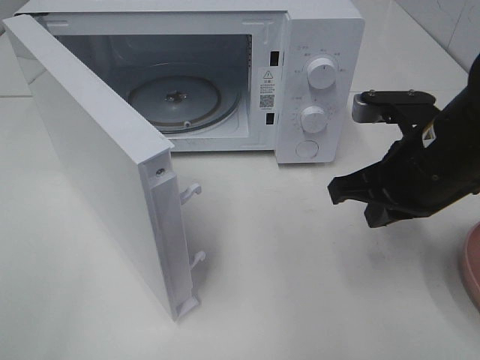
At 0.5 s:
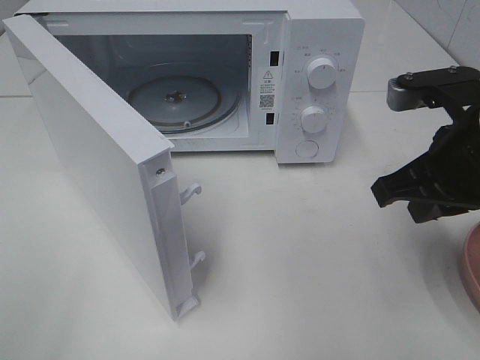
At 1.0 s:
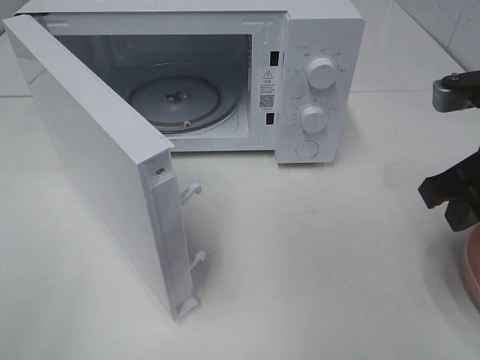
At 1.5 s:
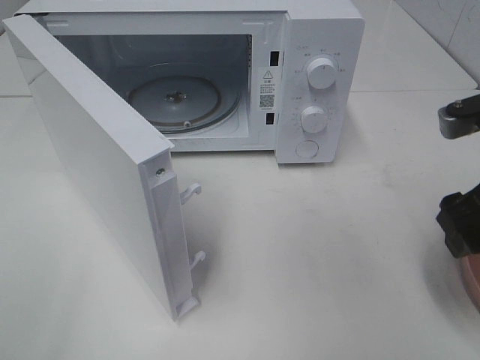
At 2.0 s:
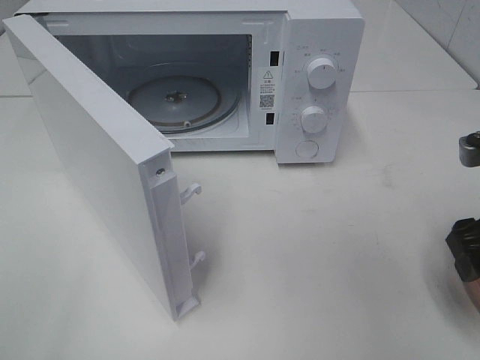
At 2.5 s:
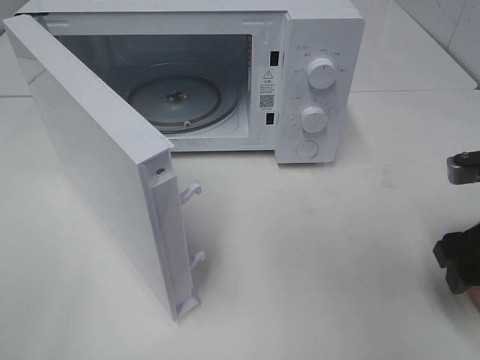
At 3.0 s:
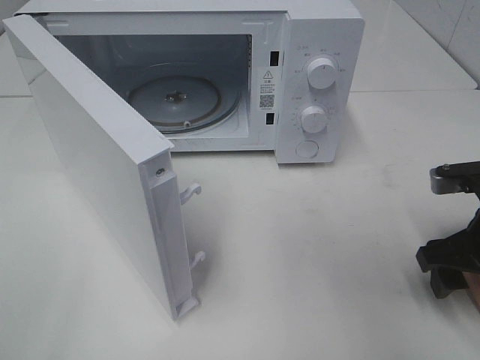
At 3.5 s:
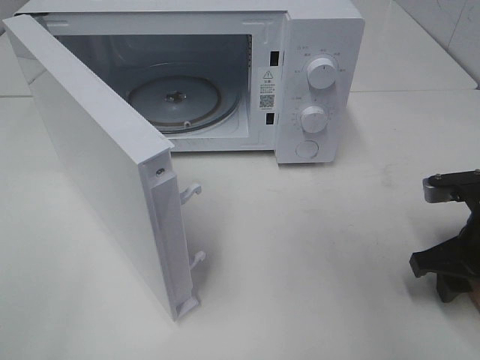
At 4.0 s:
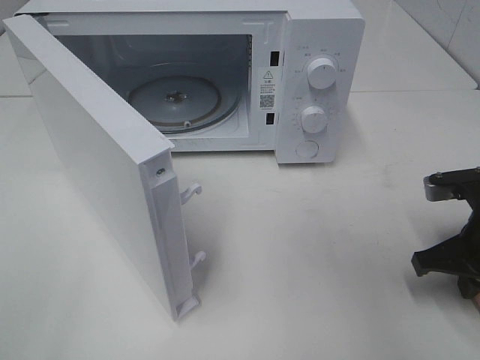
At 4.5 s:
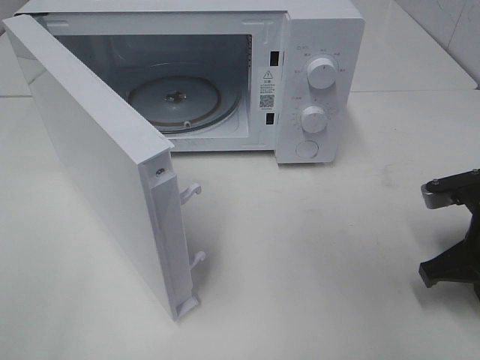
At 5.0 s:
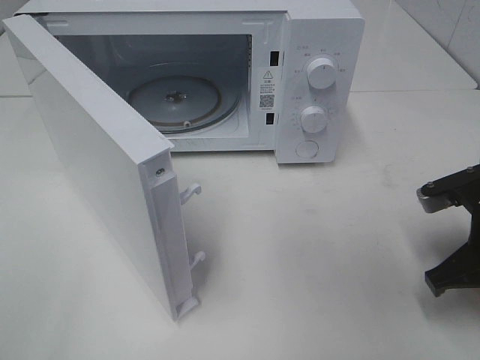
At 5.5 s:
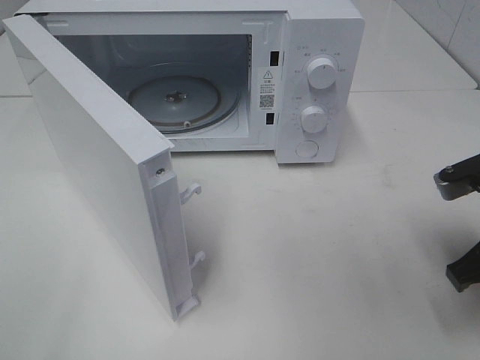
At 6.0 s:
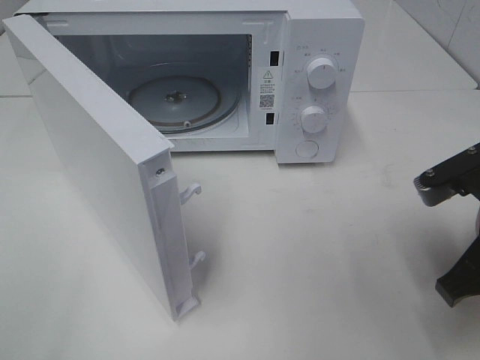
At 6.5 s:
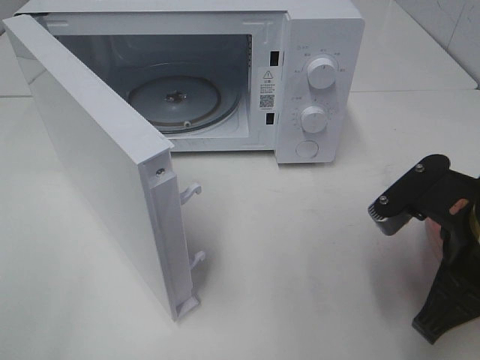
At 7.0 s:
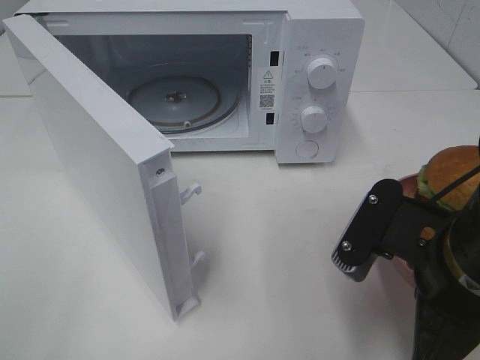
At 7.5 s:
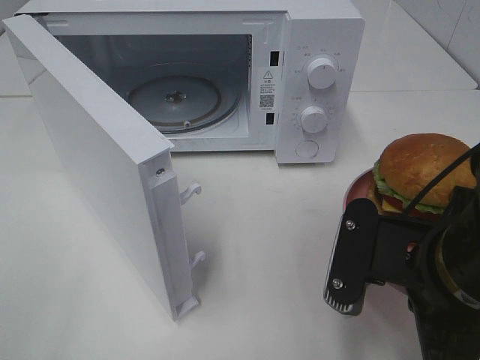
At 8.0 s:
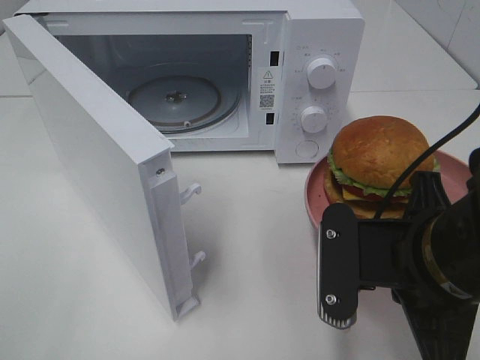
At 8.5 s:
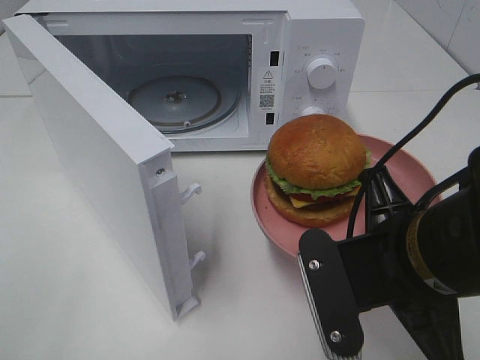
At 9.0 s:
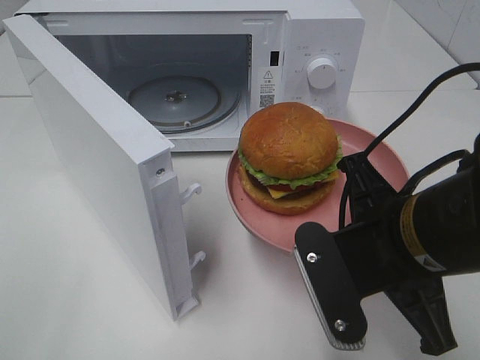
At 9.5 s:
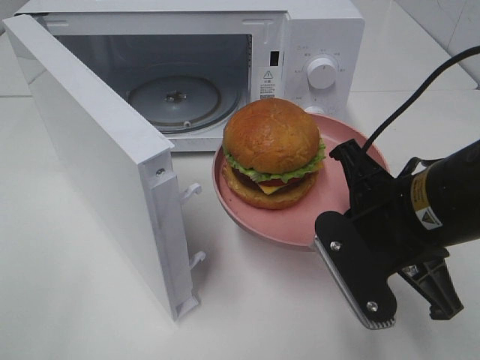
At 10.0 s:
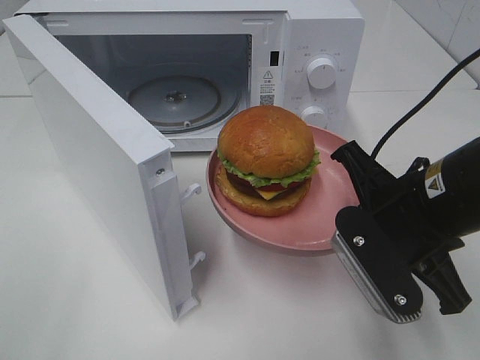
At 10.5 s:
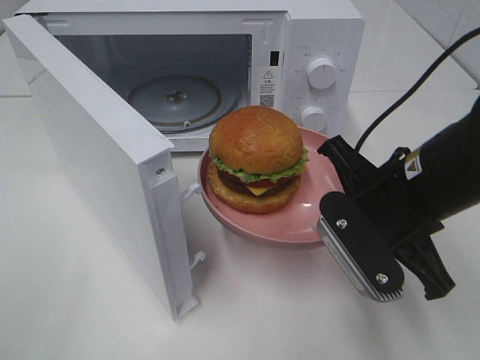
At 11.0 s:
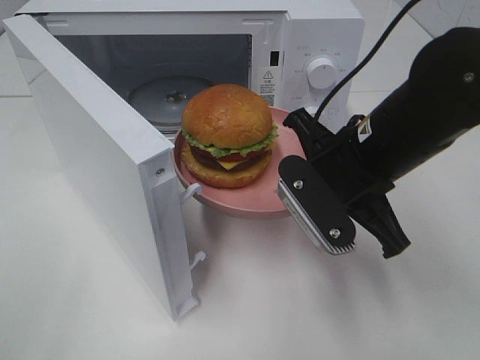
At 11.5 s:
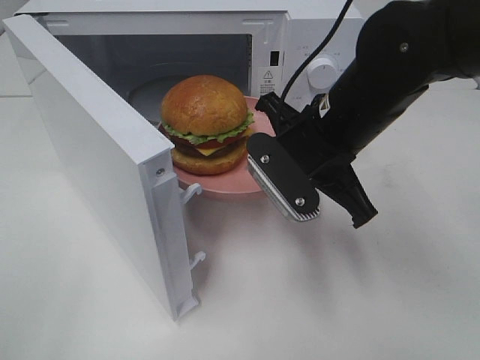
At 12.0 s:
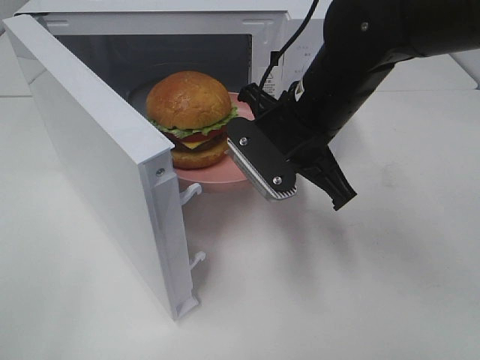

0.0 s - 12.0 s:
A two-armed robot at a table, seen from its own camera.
Task of the whole recording: Heat the burger.
Step, 0.0 s - 4.5 s: Right hand: grab the plate with the hamburger.
0.0 s - 2.0 s: The right gripper goes about 10 cm to the right, and opens up.
2.0 s - 4.0 s: The right gripper shifts roughly 10 cm downward, and closes.
4.0 s - 6.0 s: The right gripper shifts some 5 cm upward.
6.0 s - 8.0 s: The right gripper goes about 10 cm to the left.
8.0 s - 10.0 s: The right gripper moves forward, roughly 5 cm.
10.0 s - 12.0 s: The right gripper heads forward and to the left, covering approximately 15 cm.

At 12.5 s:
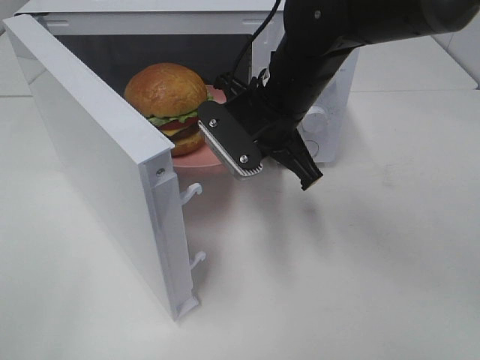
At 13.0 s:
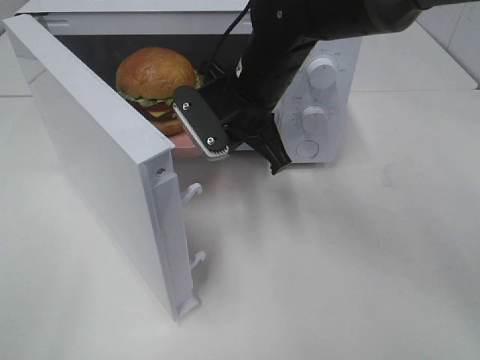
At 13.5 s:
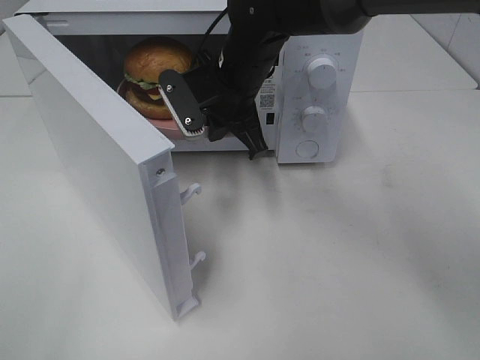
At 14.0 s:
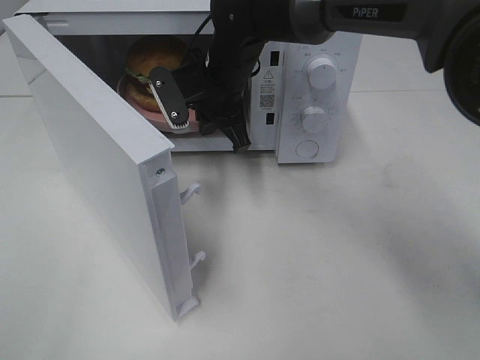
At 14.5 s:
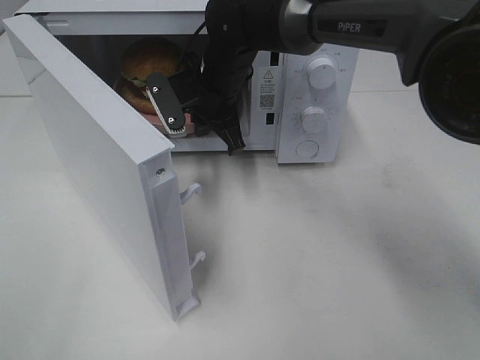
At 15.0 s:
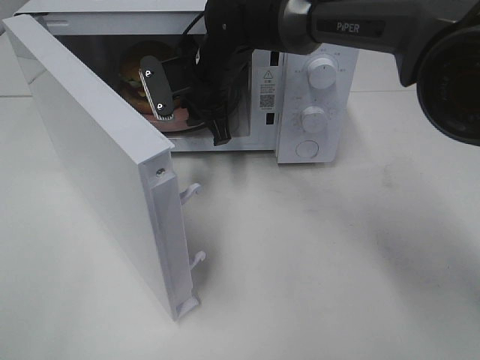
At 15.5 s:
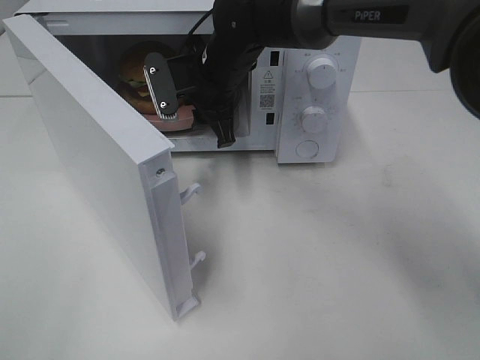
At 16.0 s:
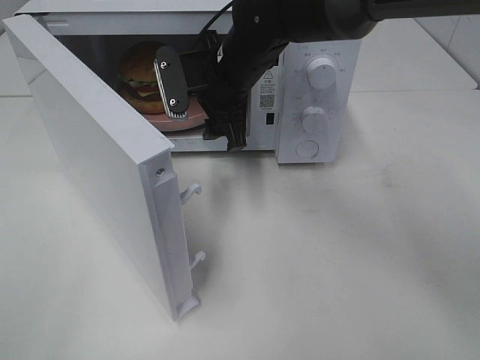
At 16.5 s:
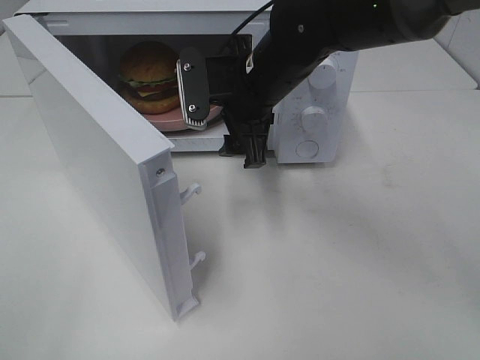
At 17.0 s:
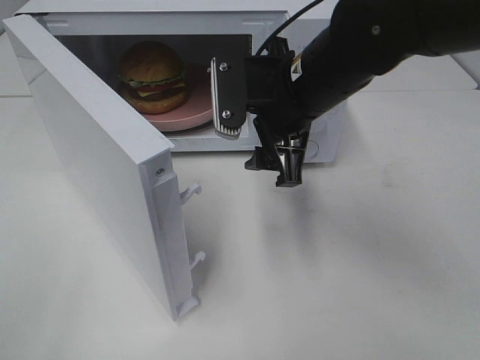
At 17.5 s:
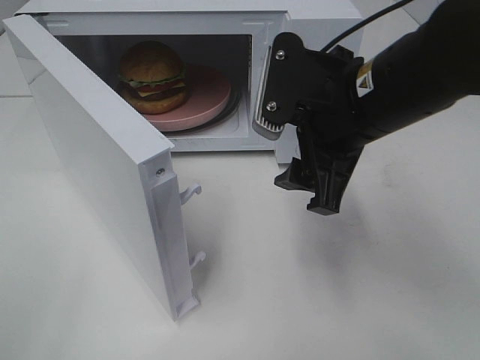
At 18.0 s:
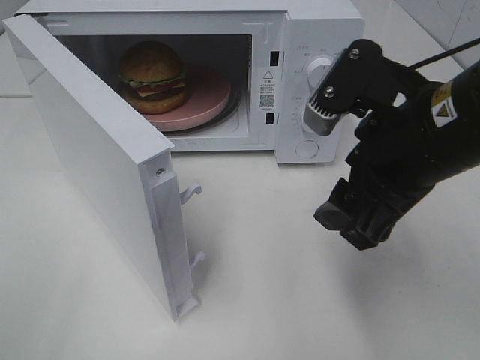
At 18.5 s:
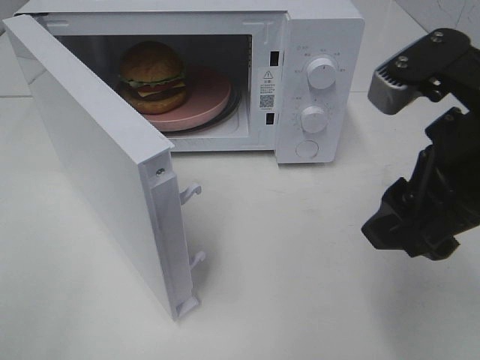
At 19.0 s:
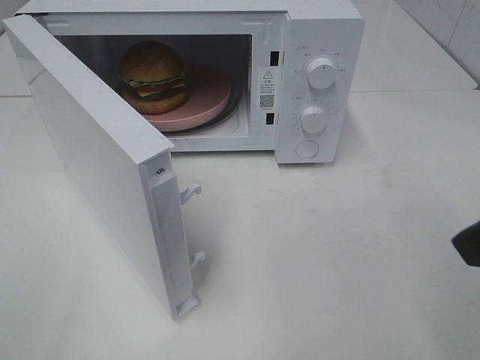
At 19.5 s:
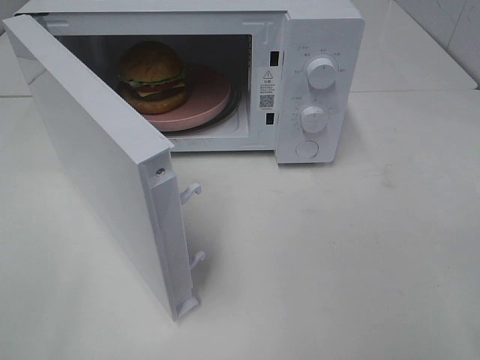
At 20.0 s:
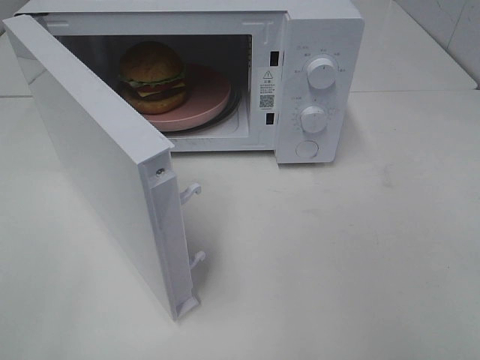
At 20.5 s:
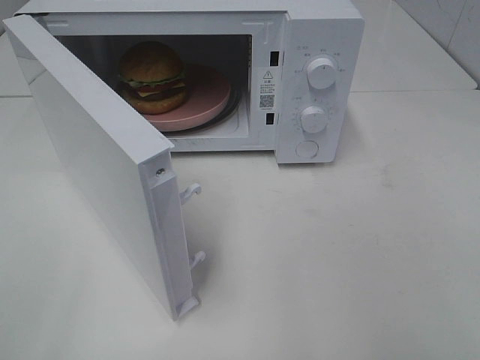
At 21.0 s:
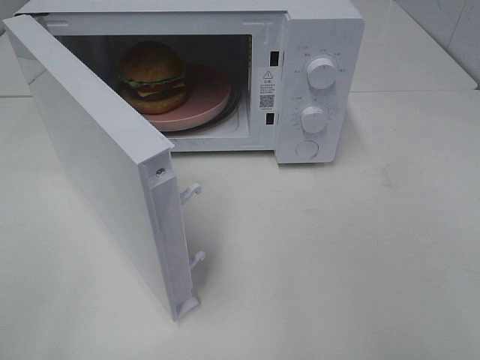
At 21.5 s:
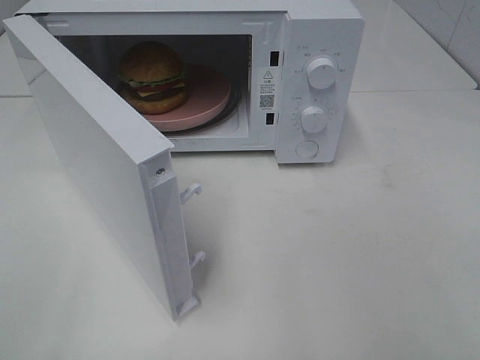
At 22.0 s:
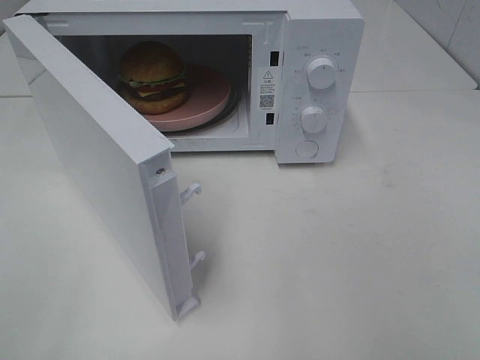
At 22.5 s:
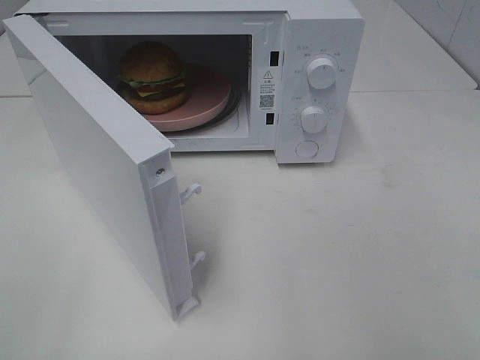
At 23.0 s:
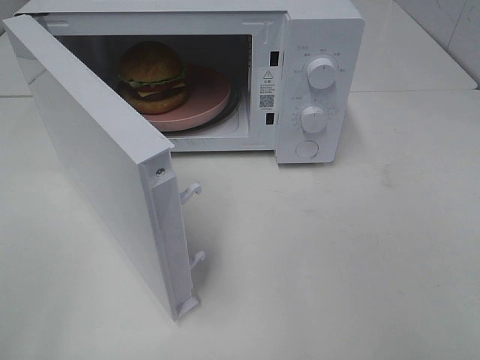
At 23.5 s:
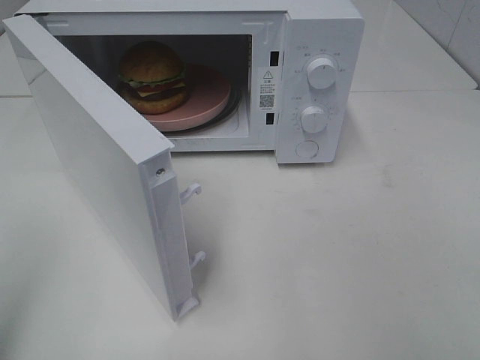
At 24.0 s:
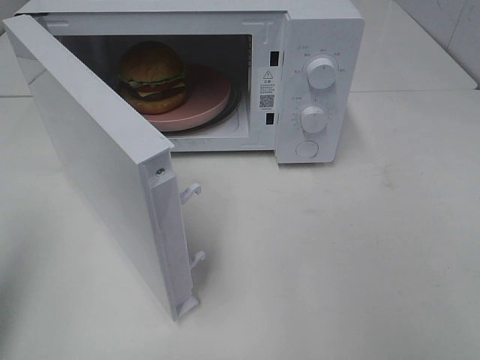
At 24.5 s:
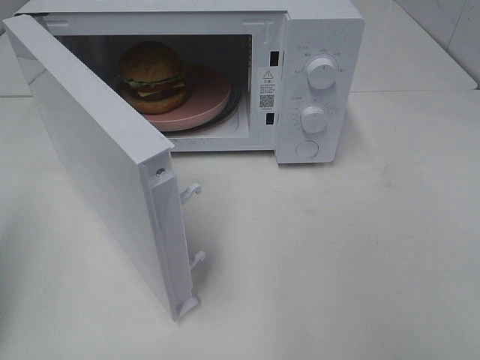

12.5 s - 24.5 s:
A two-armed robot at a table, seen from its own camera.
Task of the whole recording: Heat the burger.
Step, 12.5 s - 15.0 s: Right hand: place the plate in the microwave.
12.5 s - 14.5 s: The right gripper shifts some 10 cm forward and to the left.
14.5 s - 16.5 s: The right gripper travels backward and to the right by about 10 cm, and opens its fingers.
16.5 s - 18.5 s: The right gripper goes approximately 25 cm backward and to the right.
18.5 s - 20.5 s: The right gripper moves backward and to the right, about 20 cm.
20.5 s - 22.5 s: The two grippers keep their place.
22.5 s - 24.5 s: The left gripper moves forward, roughly 15 cm, and closes up.

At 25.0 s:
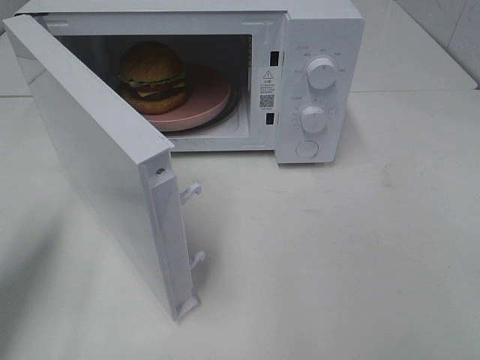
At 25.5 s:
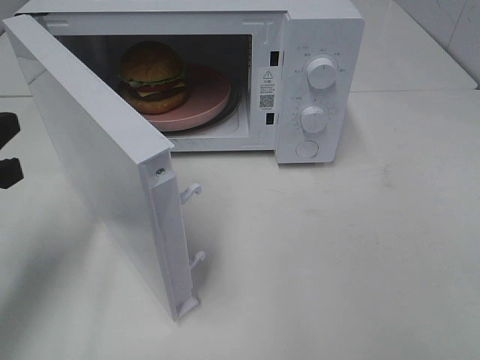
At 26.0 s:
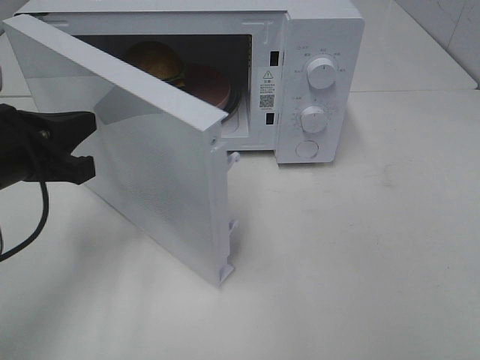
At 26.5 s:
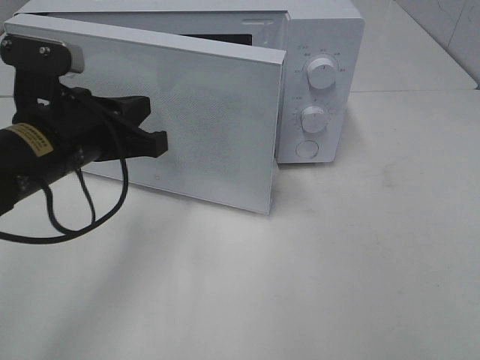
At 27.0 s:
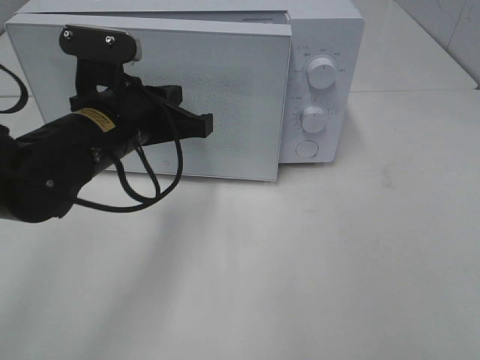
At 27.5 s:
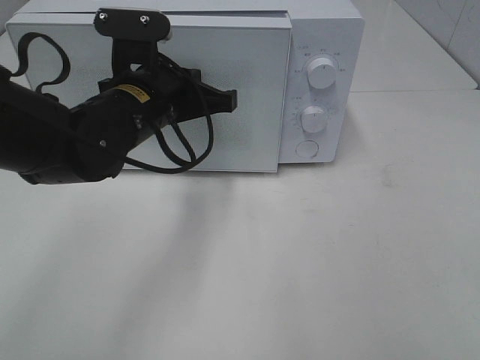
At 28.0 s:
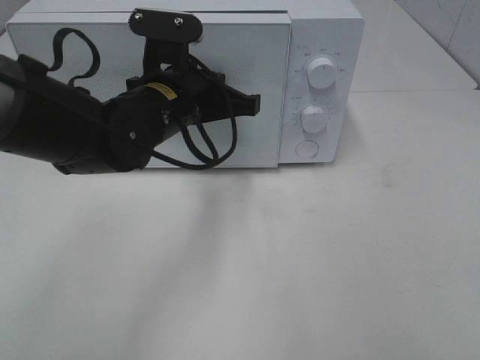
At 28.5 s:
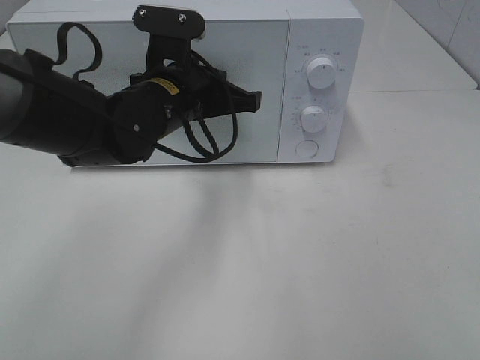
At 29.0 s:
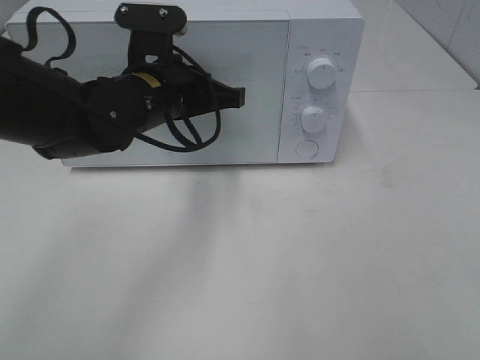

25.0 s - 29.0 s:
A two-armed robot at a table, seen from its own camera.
Task of the whole recording: Heat the burger.
25.0 s - 27.0 s: The left gripper shifts some 20 cm to the right and forward.
27.0 s - 29.0 s: The left gripper ends up approximately 5 cm from where it was.
